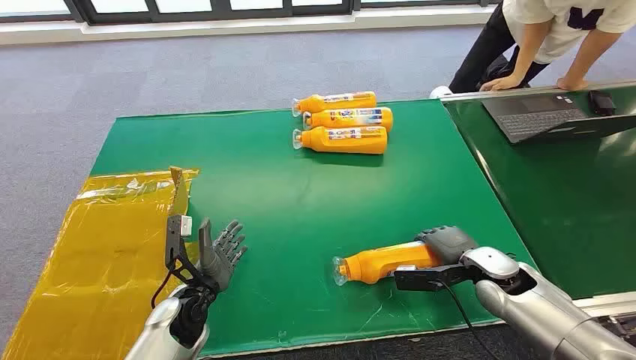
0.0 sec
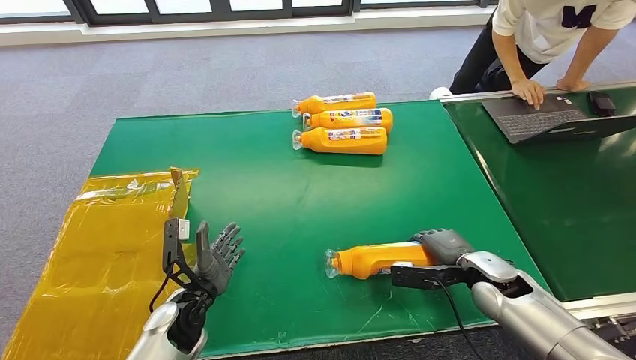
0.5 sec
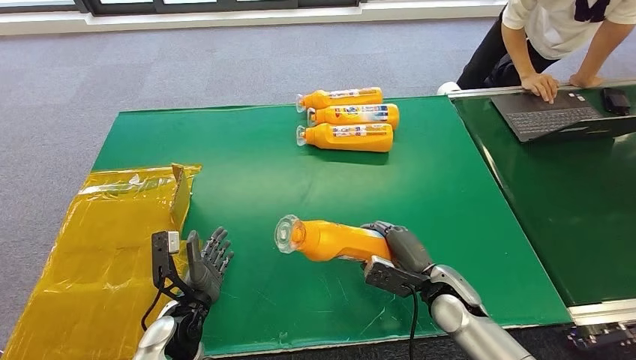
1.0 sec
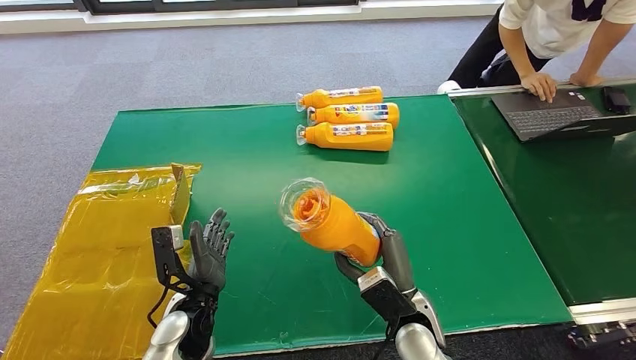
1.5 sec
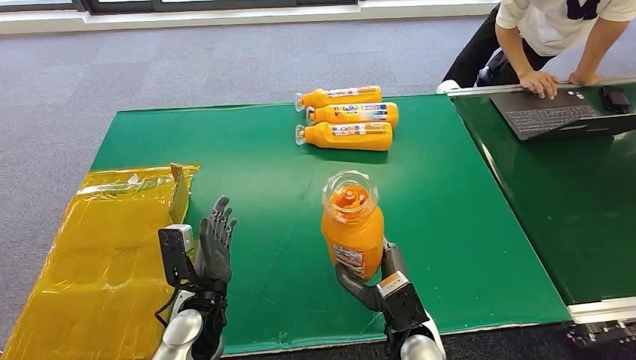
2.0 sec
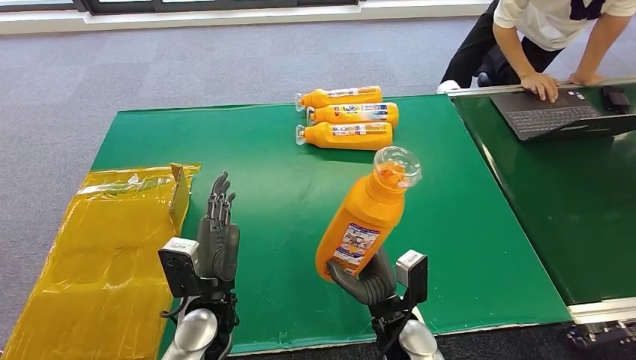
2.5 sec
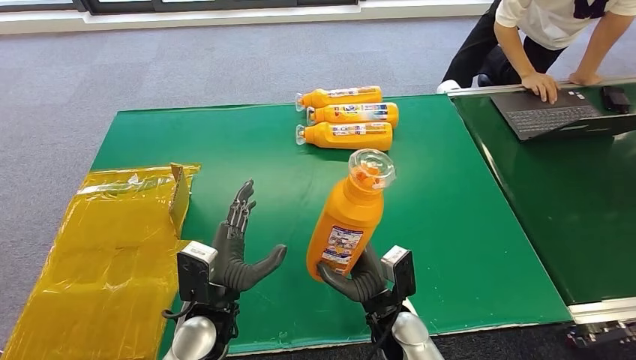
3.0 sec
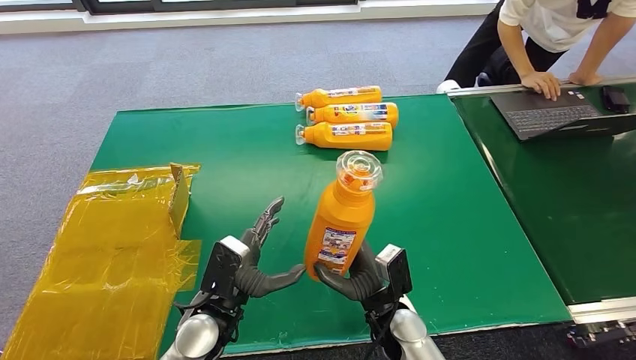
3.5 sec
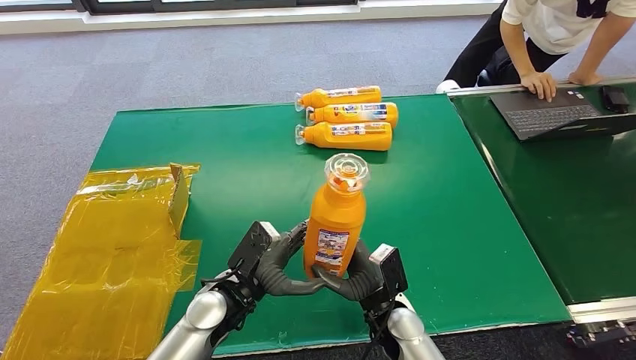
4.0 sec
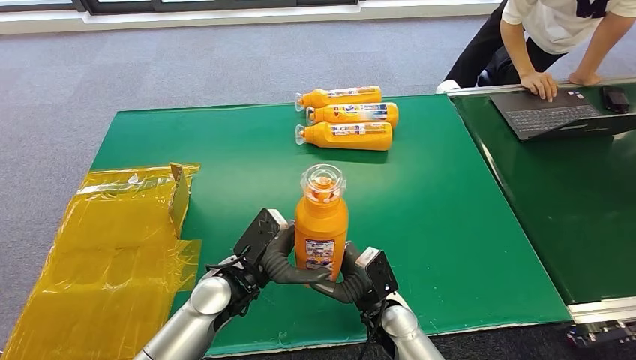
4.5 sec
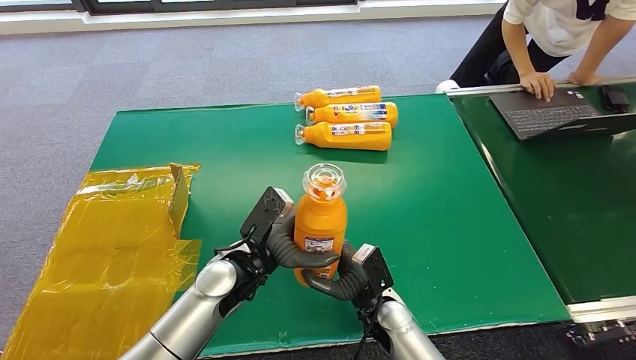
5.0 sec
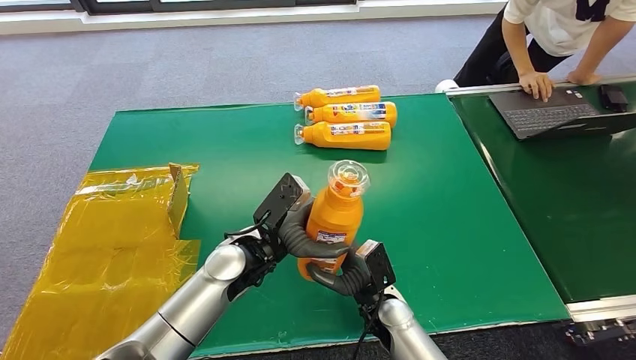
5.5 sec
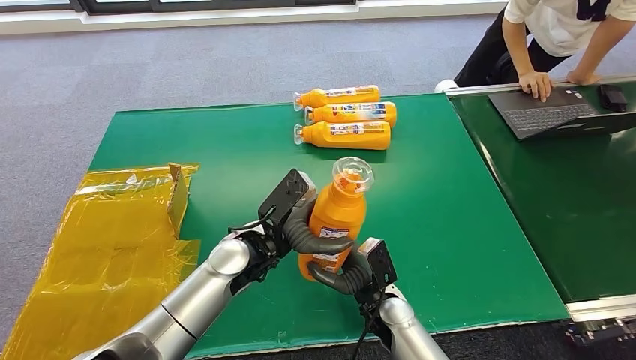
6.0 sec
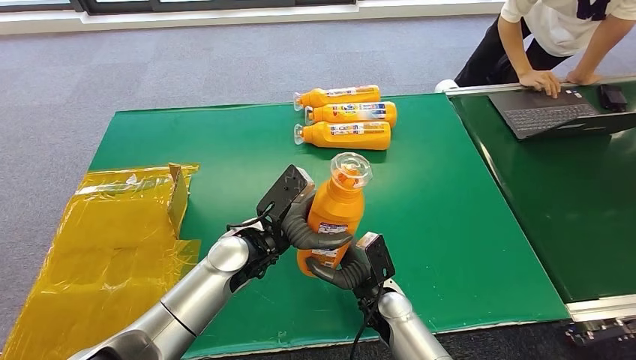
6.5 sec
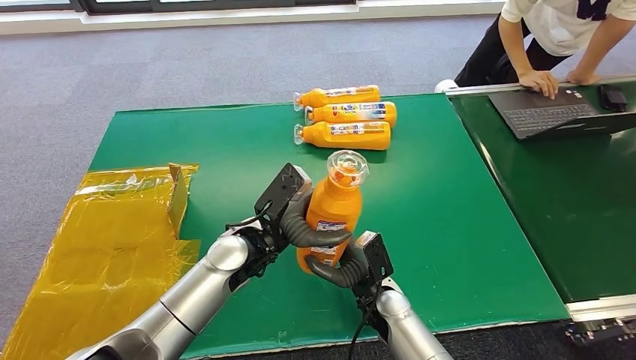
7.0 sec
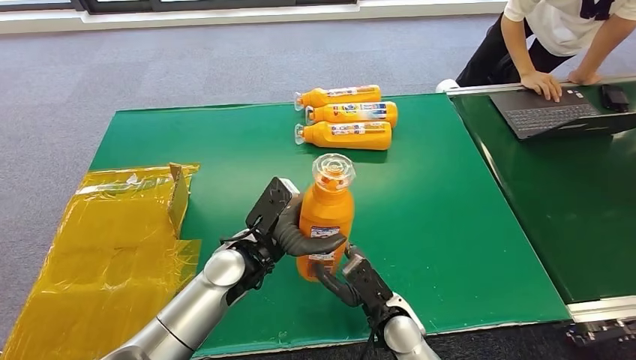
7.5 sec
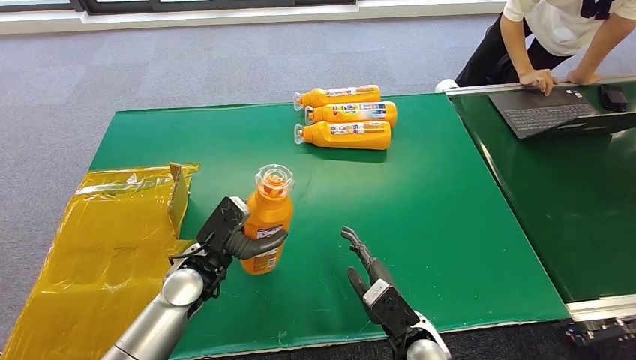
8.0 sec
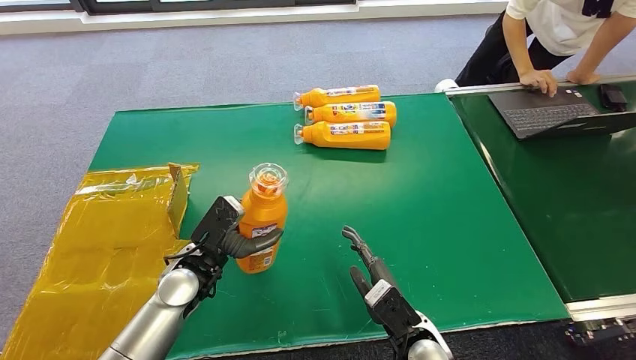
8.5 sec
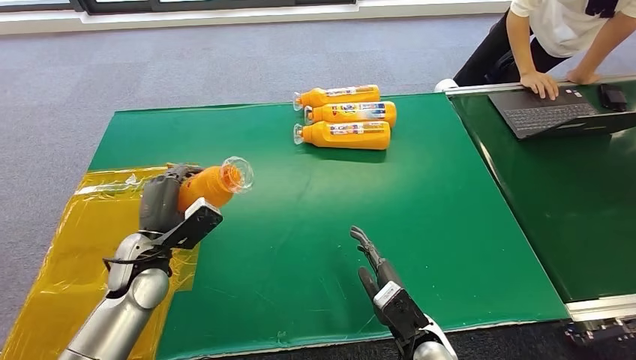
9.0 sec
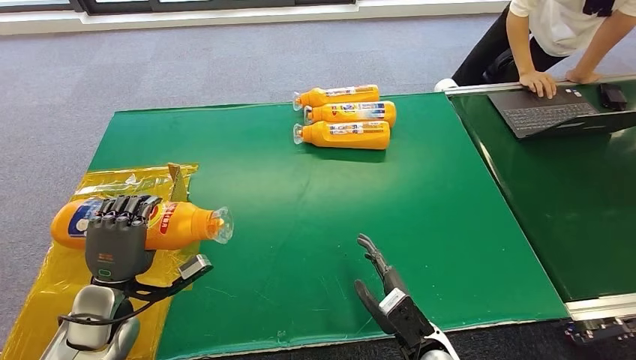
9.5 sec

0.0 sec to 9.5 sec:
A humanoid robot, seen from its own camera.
Step, 0.0 sec to 1.0 sec: Pick up the bottle from the table.
Step, 4.0 sec to 9.5 sec: Turn the bottle to the front side.
2.0 sec to 4.0 sec: The right hand moves approximately 5 cm.
4.0 sec to 5.5 sec: The left hand goes some 10 cm upward and forward.
5.5 sec to 7.5 sec: The hands stay close to where they were, moving slightly.
7.5 sec to 9.5 sec: The right hand moves backward, some 5 cm. The left hand goes about 20 cm to the left.
